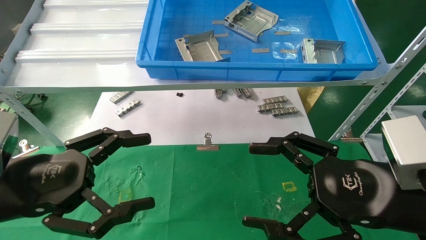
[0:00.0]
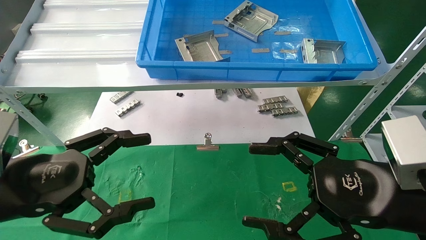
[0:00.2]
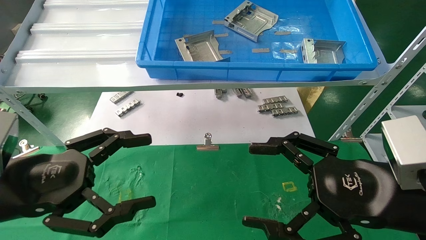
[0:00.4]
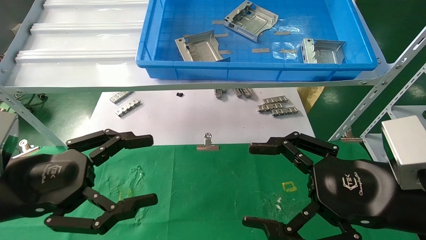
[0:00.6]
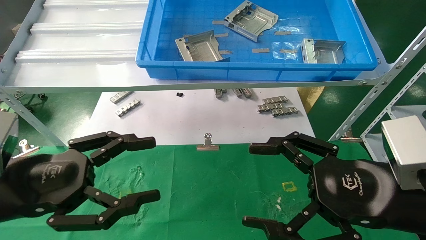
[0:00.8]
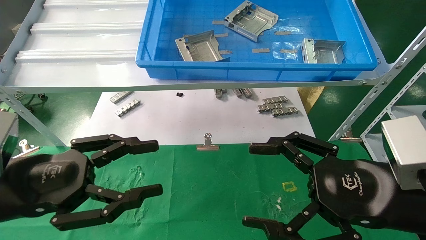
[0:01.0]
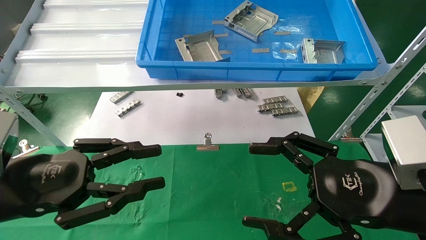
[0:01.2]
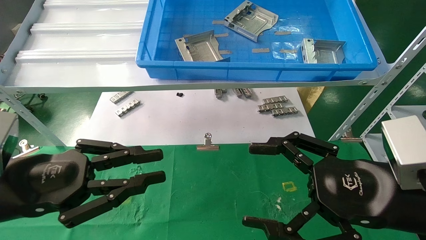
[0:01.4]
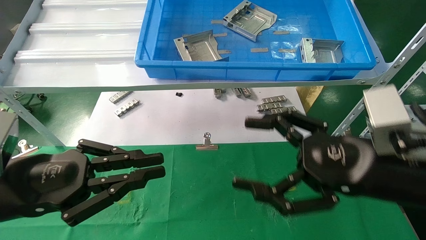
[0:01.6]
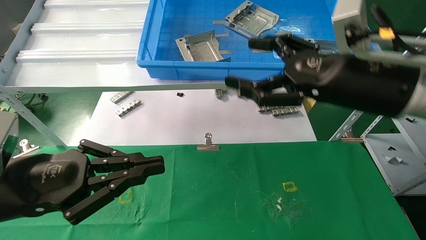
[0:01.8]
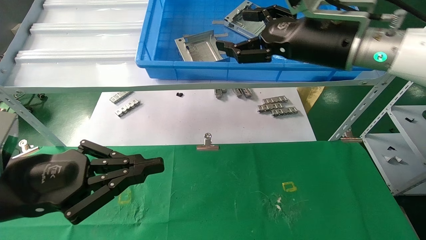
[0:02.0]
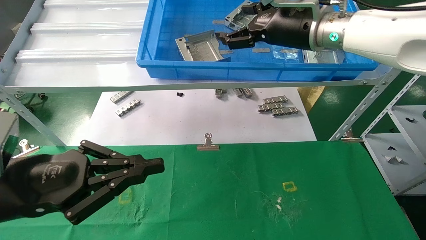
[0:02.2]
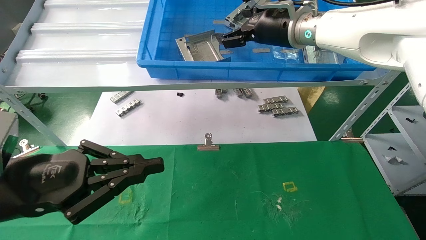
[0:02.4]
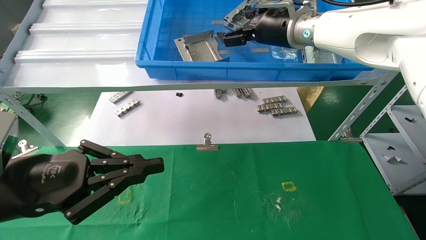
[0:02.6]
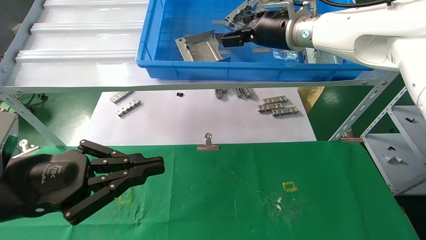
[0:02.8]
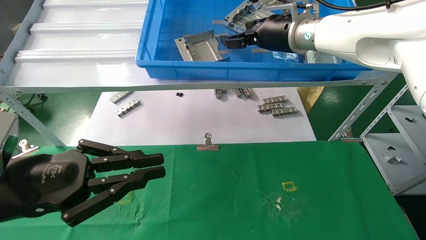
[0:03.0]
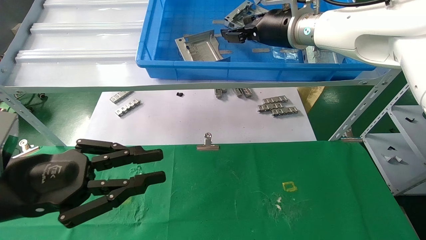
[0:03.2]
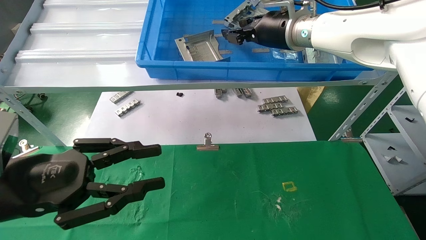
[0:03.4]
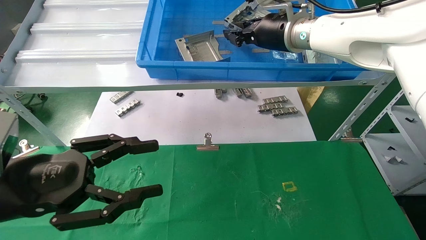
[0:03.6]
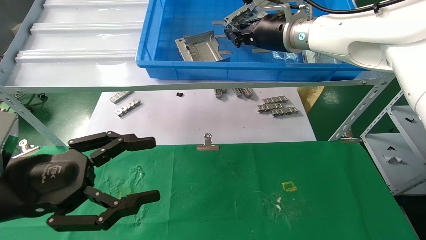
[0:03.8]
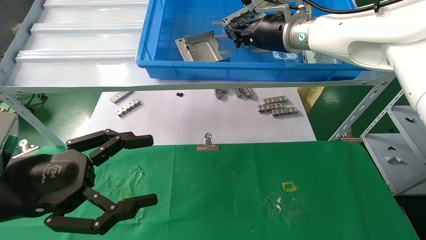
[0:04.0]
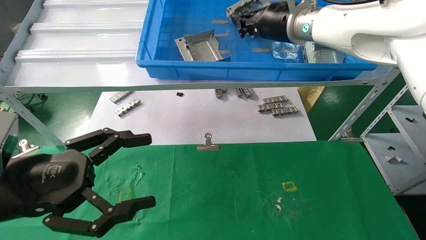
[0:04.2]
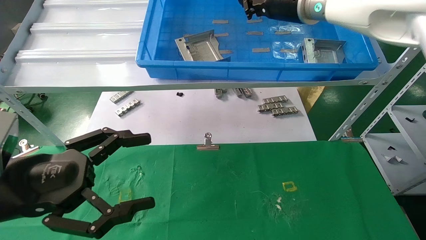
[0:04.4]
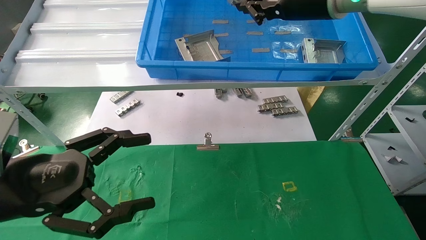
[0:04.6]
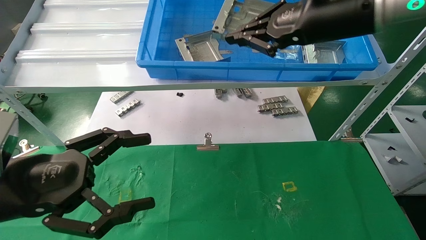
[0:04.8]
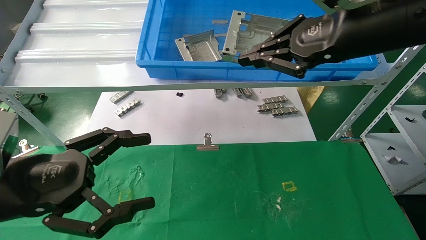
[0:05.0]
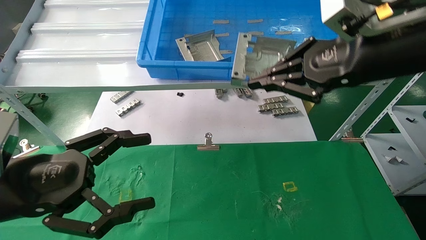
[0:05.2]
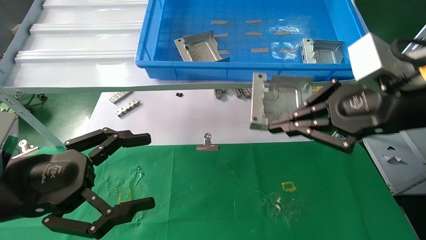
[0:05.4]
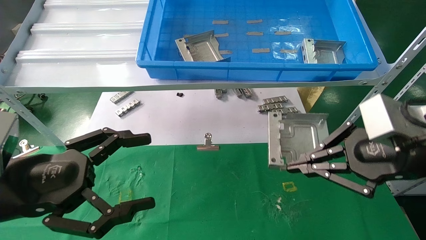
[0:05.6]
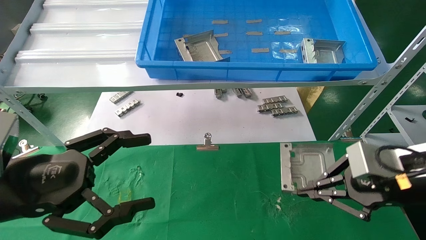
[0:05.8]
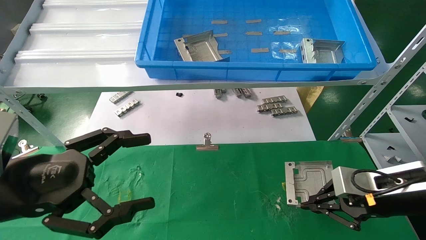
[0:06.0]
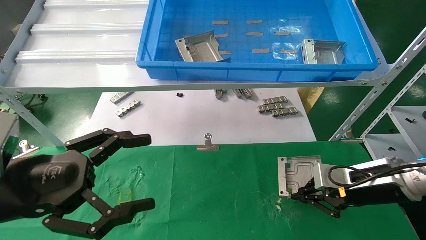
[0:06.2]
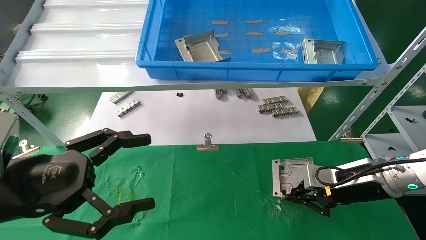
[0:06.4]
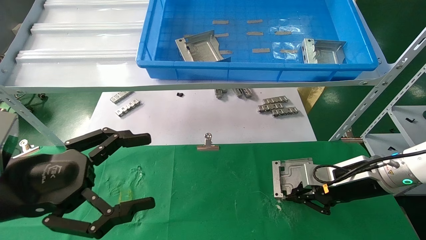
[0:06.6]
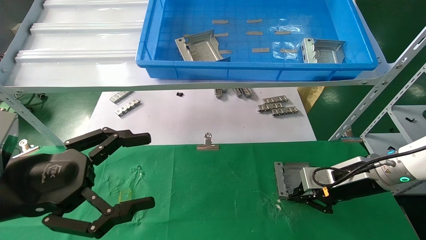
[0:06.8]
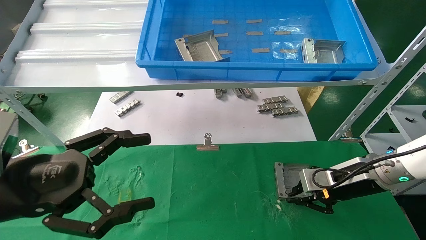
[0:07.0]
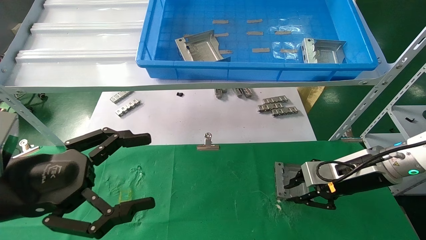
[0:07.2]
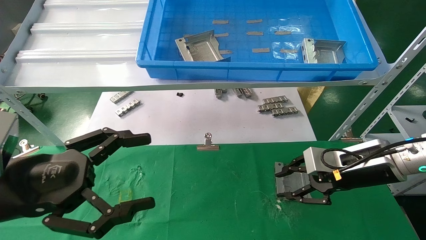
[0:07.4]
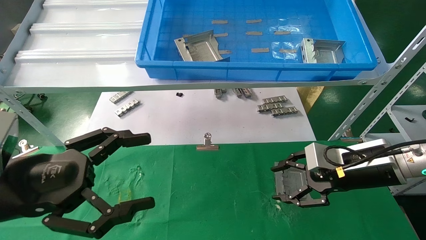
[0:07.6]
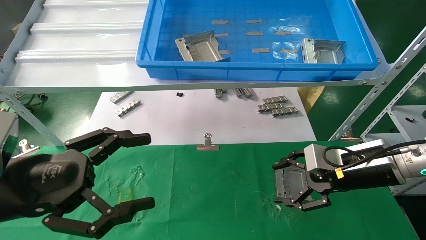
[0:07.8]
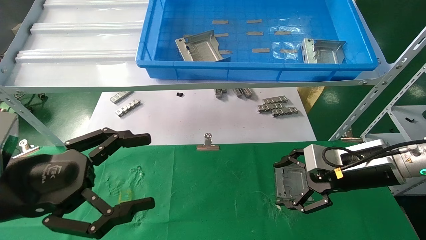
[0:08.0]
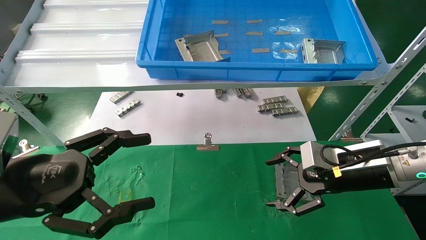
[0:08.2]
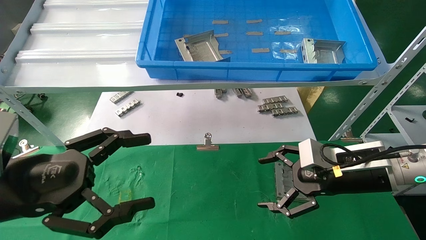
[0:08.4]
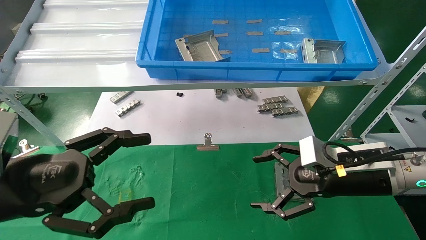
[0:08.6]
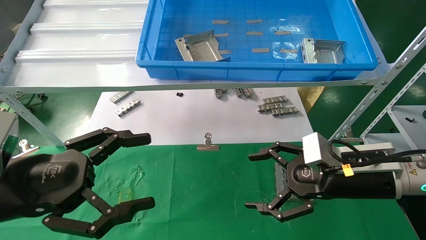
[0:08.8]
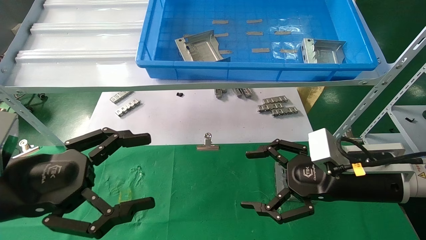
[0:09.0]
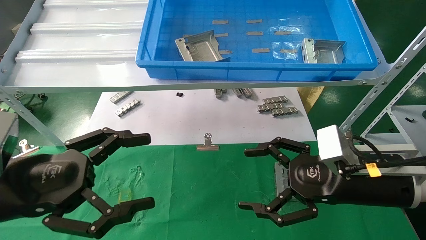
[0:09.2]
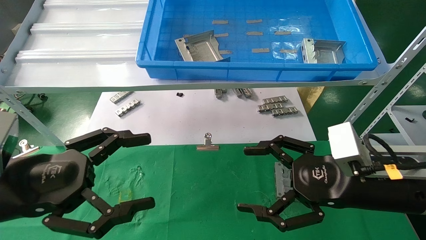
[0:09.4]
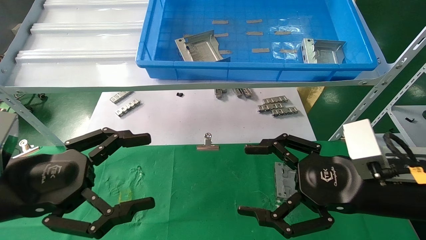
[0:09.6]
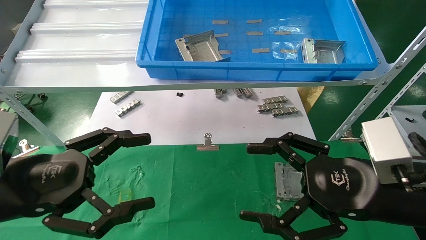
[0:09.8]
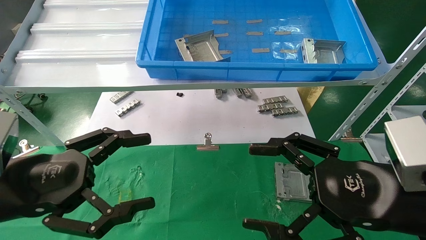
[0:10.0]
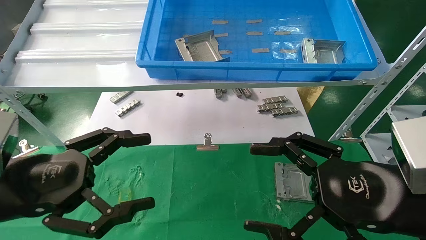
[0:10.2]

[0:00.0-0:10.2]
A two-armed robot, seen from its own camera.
Task of the whole recording: use the mechanical arm to pick up the parts and place them on the table.
Step, 0:02.6 to 0:06.2: Pick up the hard drive bracket from the feeding area.
Step, 0:06.4 to 0:09.0: Place the hard drive bracket into the box.
0:00.0 to 0:01.4: The left gripper closes up.
0:01.4 to 0:03.0: The right gripper travels forward and upward by about 30 cm.
0:03.0 to 0:04.4: The right gripper ends up some 5 cm from where it was, and closes up; the left gripper opens up.
0:04.4 to 0:05.8: The right gripper heads downward, backward and to the right, covering roughly 30 cm.
0:05.8 to 0:07.2: The right gripper moves forward and downward, approximately 10 cm.
0:07.2 to 0:08.8: The right gripper moves backward, some 5 cm, and opens up.
0:08.8 to 0:10.2: The right gripper is displaced backward by some 10 cm.
